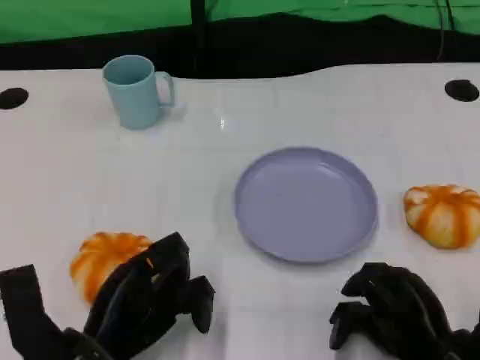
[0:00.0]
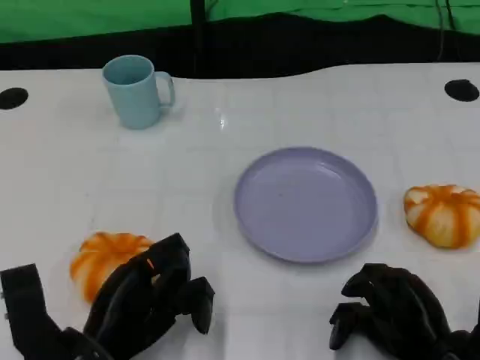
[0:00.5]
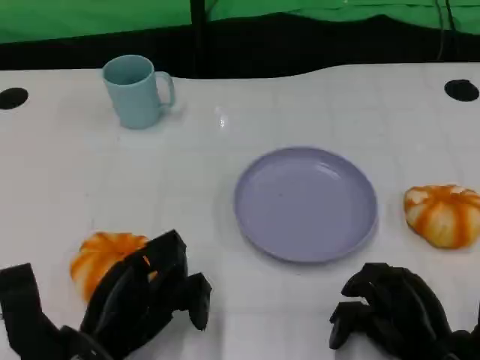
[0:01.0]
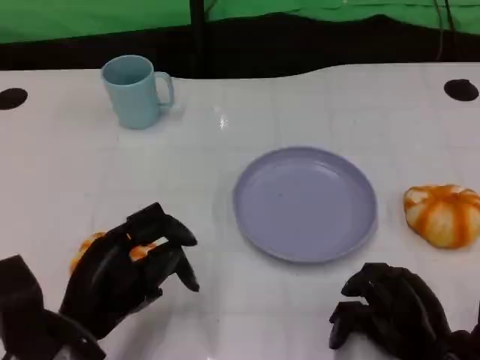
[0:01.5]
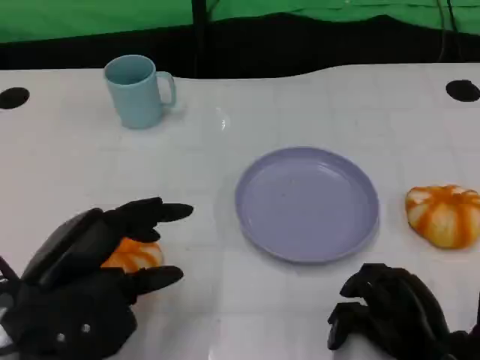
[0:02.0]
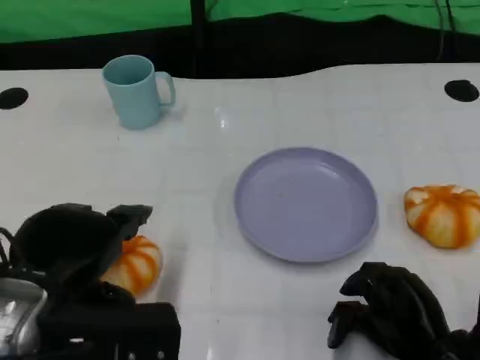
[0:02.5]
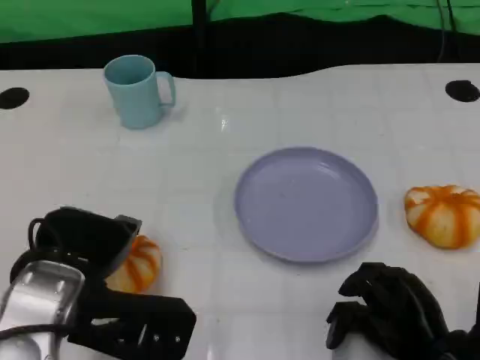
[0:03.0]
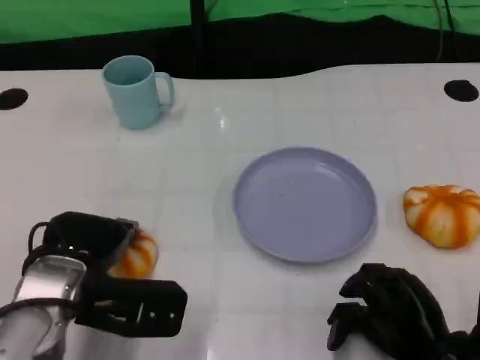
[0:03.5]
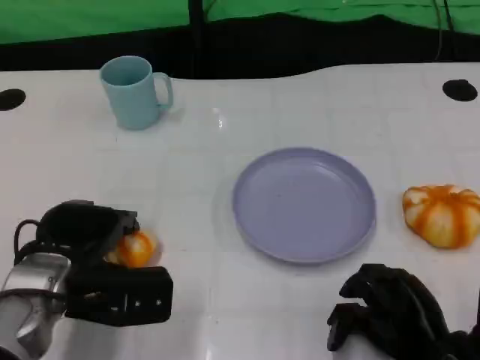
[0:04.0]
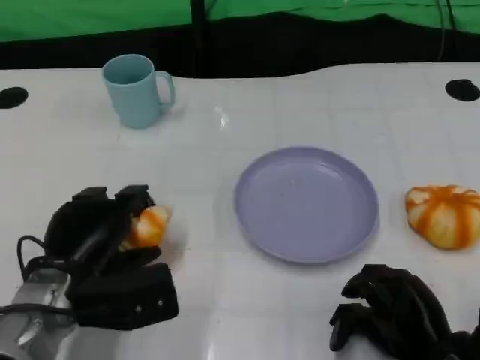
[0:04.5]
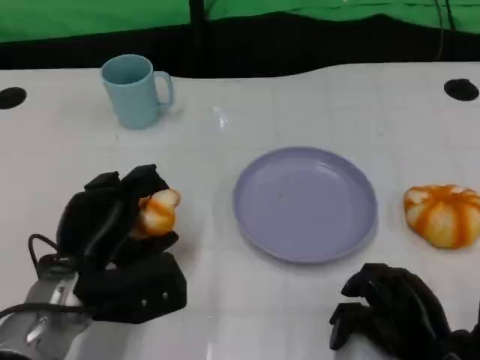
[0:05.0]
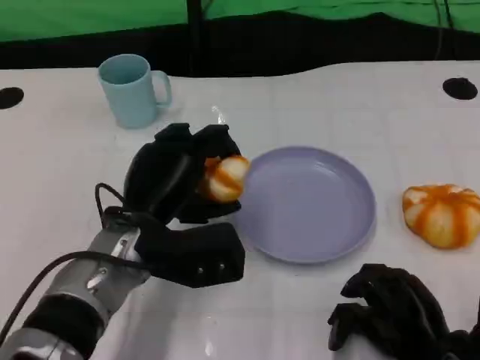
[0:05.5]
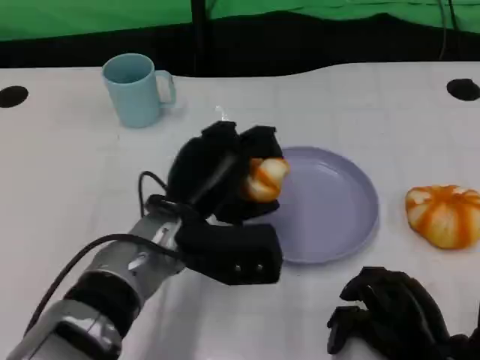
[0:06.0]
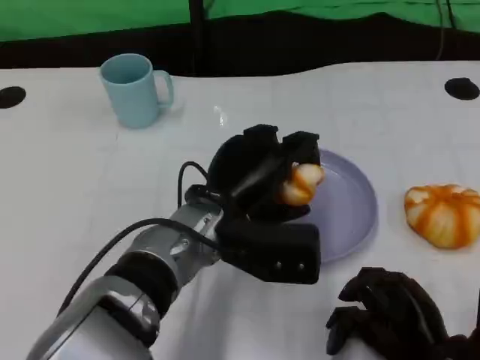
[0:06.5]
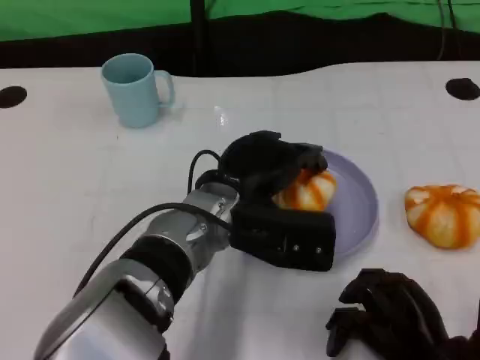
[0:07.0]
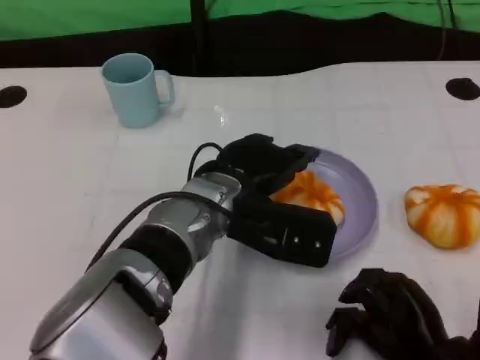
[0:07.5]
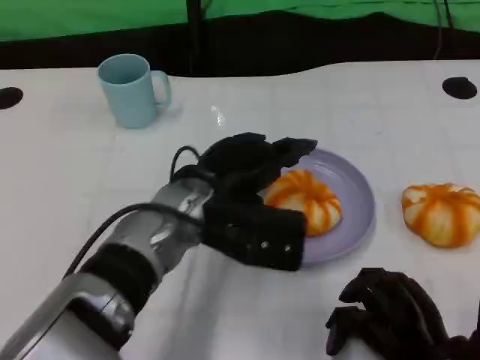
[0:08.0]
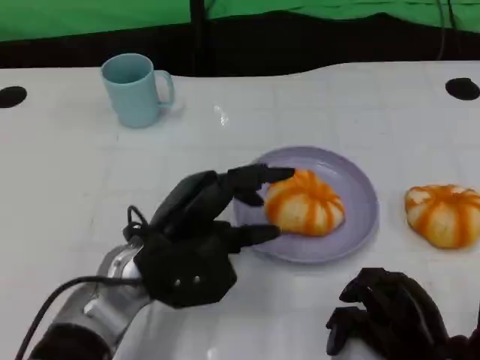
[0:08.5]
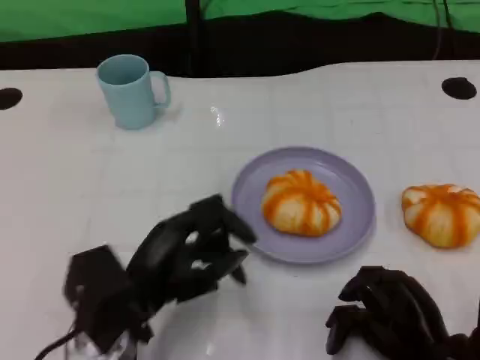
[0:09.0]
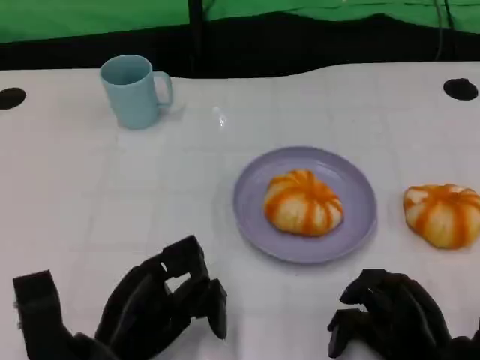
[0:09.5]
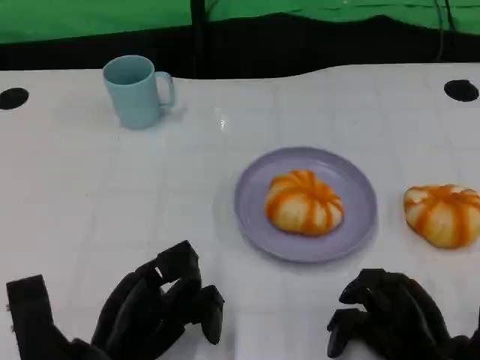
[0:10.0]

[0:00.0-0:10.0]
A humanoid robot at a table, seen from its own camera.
Task of the whole recording: Grasp the bread from the table and place it into the plate.
0:00.0 to 0:02.0: The left hand shifts approximately 10 cm upward.
0:02.0 to 0:04.0: The left hand shifts about 10 cm forward and downward.
0:04.0 to 0:06.0: The left hand moves to the right, about 15 cm.
0:08.0 to 0:10.0: The left hand moves backward, to the left and downward, about 20 cm.

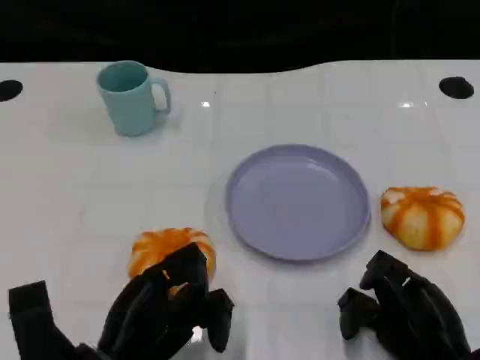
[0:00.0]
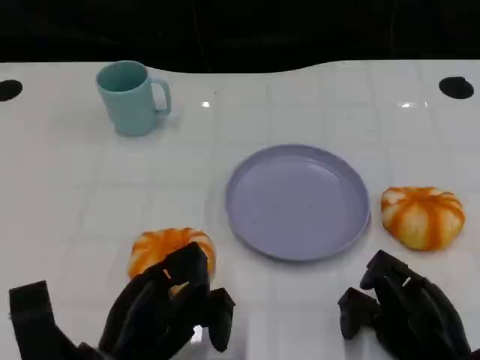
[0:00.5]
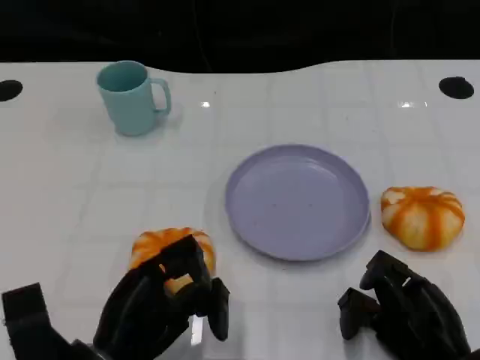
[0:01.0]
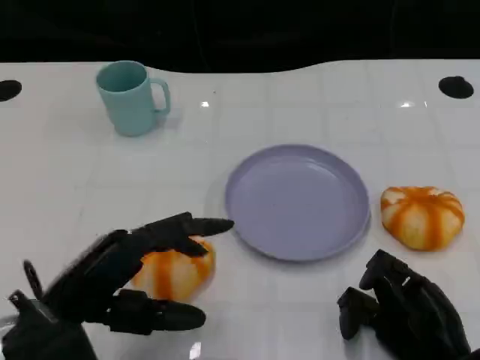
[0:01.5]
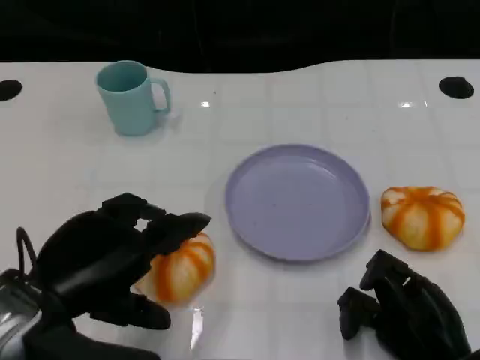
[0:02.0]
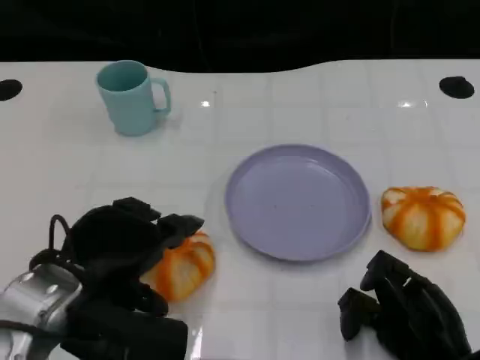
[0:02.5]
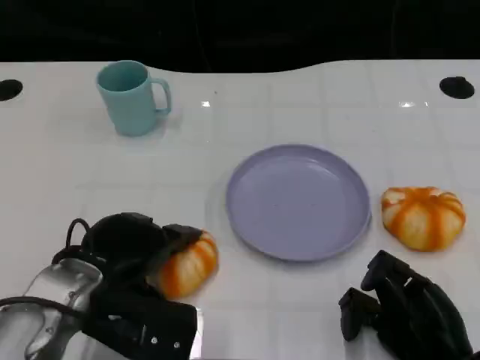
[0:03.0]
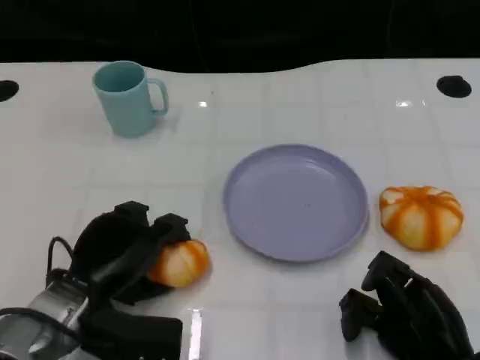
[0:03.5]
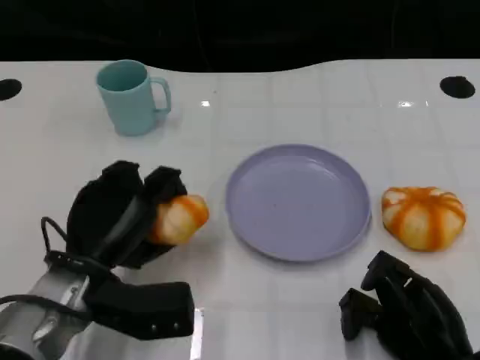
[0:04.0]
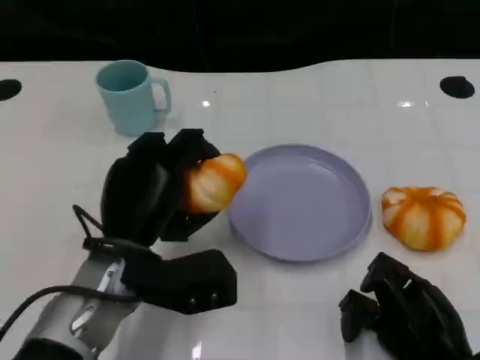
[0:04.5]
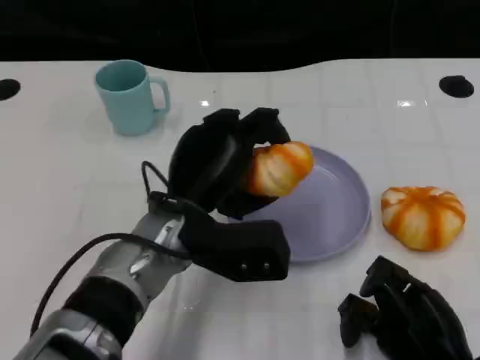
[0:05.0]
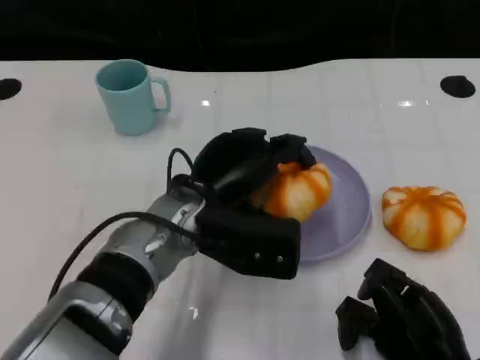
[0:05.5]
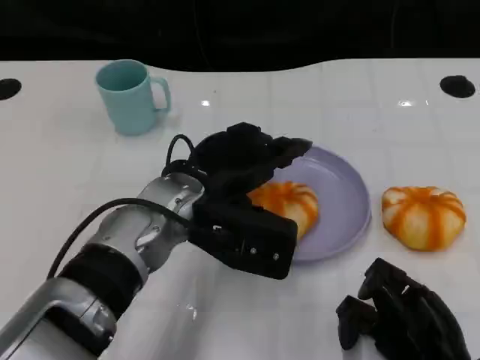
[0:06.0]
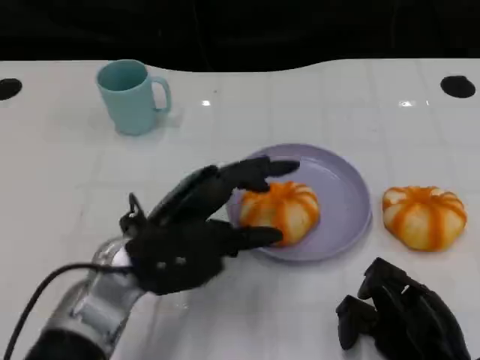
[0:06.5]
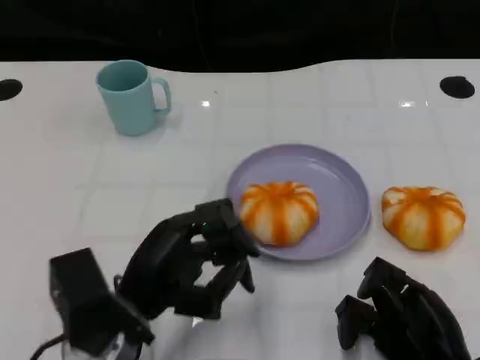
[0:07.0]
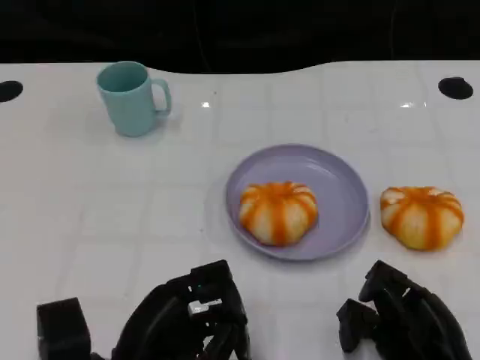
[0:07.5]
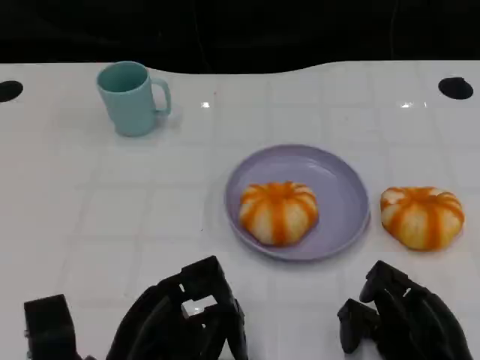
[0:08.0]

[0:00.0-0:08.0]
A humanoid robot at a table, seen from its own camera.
Task of the whole recording: Grasp the bread from the table and place it into the plate.
0:00.0 to 0:02.0: The left hand shifts about 10 cm upward.
0:02.0 to 0:04.0: The left hand travels downward and forward by approximately 10 cm.
0:04.0 to 0:06.0: The left hand shifts roughly 10 cm to the right and upward.
0:06.0 to 0:08.0: The left hand moves backward, to the left and downward, roughly 20 cm.

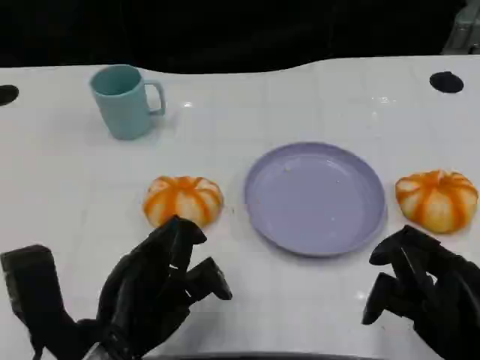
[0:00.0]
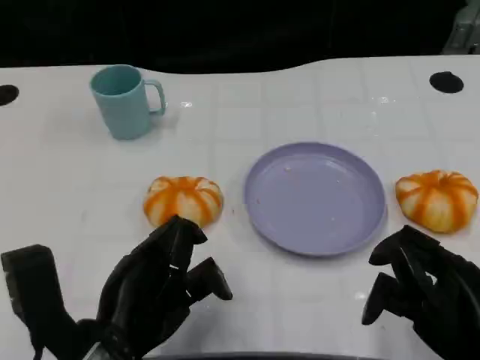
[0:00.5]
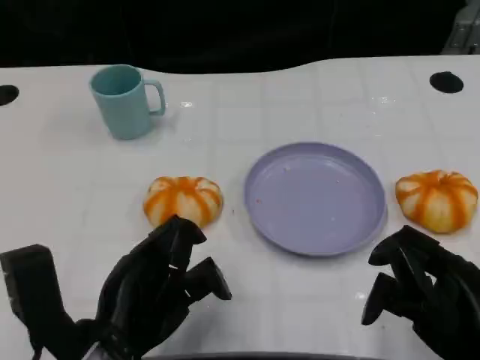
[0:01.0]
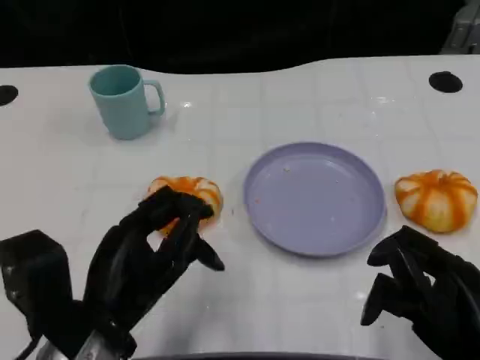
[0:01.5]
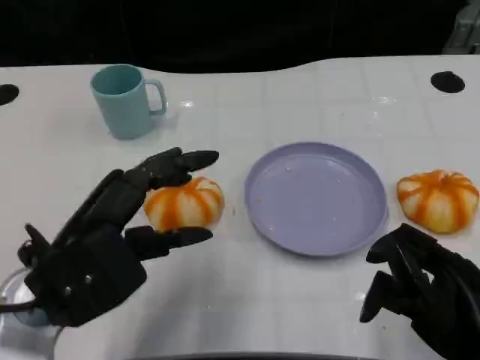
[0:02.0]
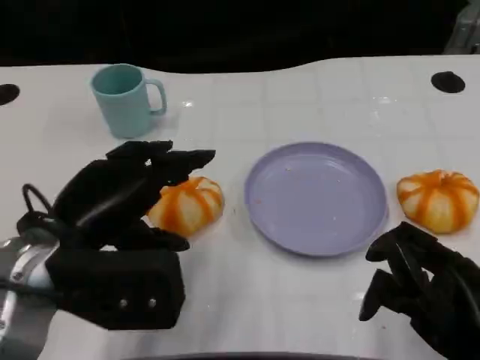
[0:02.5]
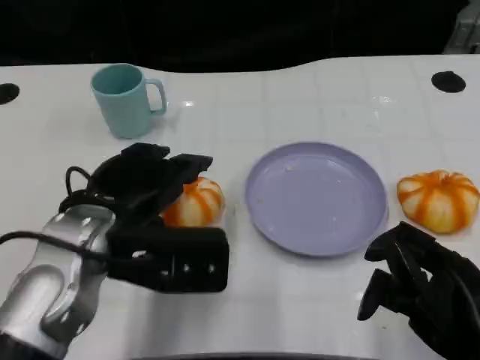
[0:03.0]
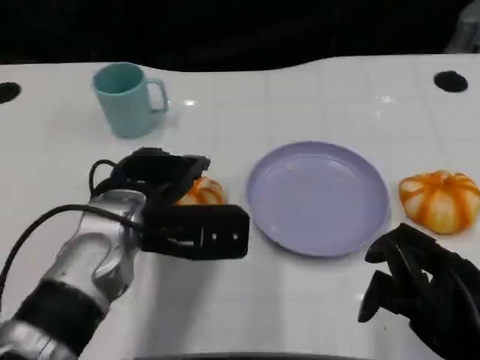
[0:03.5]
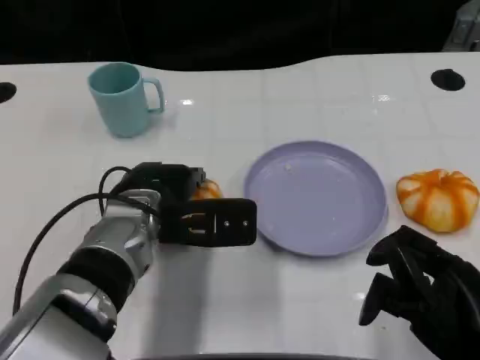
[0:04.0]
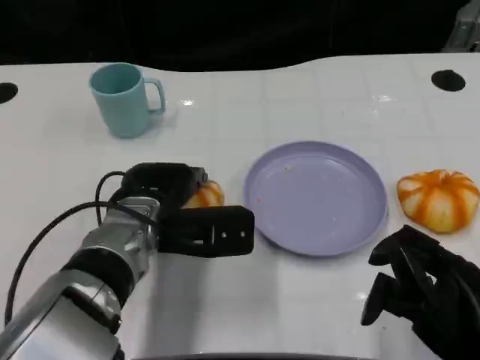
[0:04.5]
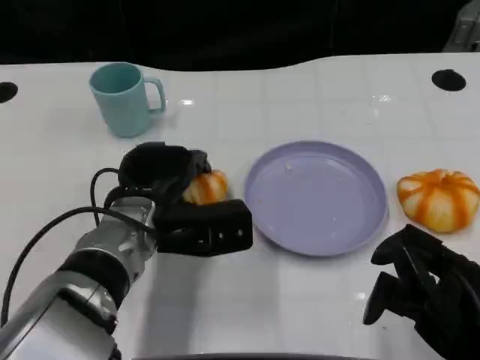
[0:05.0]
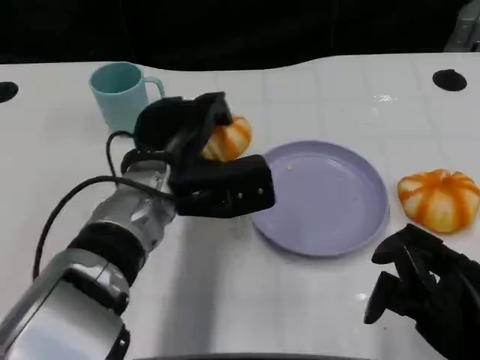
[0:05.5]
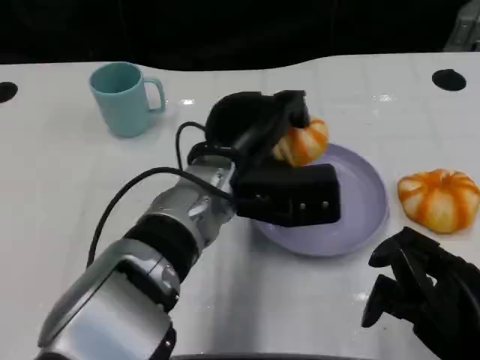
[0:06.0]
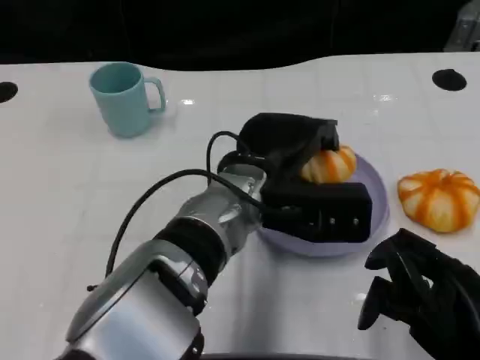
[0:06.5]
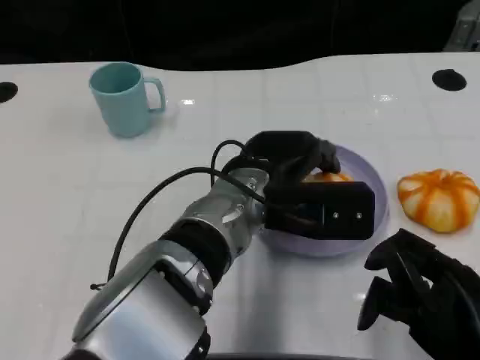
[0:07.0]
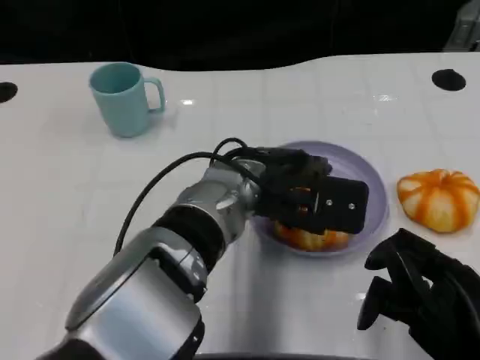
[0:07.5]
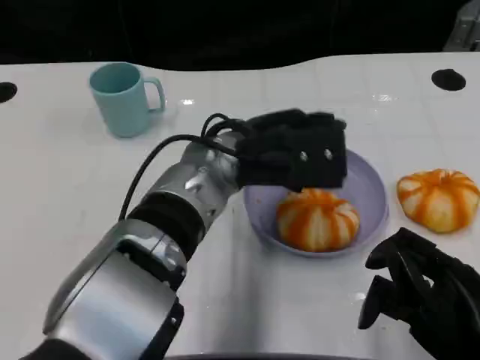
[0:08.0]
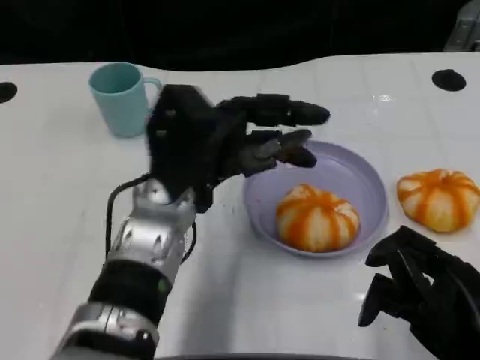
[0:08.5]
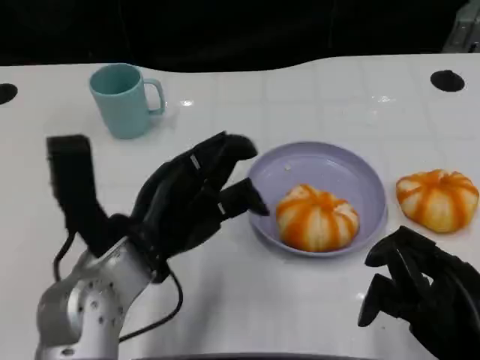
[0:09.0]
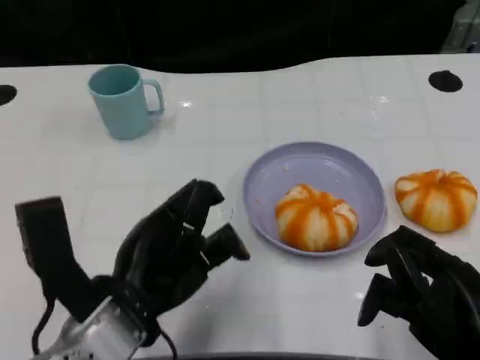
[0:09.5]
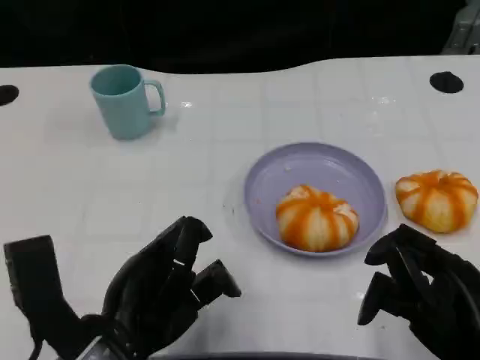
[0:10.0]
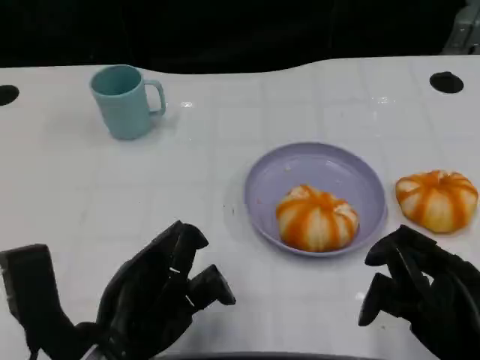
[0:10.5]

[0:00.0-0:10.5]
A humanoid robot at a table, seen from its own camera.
Task of the whole recording: Grasp the bread from the table and place it into the plate.
0:00.0 to 0:02.0: The left hand travels upward by approximately 5 cm.
0:02.0 to 0:04.0: The left hand travels forward, to the right and downward by roughly 15 cm.
0:04.0 to 0:06.5: The left hand heads to the right, covering approximately 10 cm.
0:06.5 to 0:08.5: The left hand is displaced to the left by approximately 10 cm.
0:08.5 to 0:10.5: The left hand shifts some 15 cm backward and to the left.
